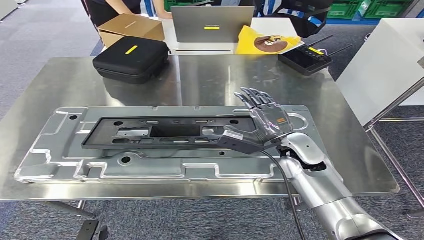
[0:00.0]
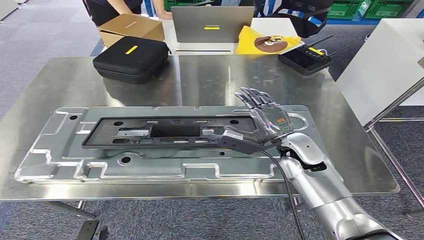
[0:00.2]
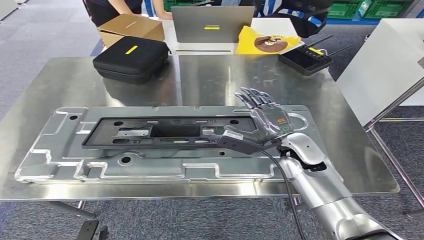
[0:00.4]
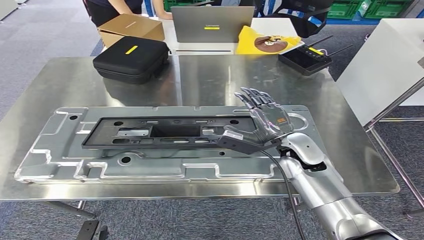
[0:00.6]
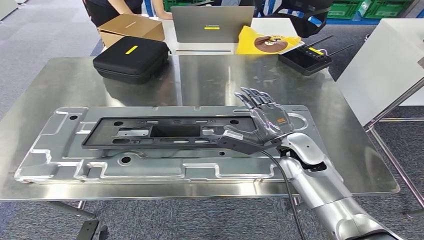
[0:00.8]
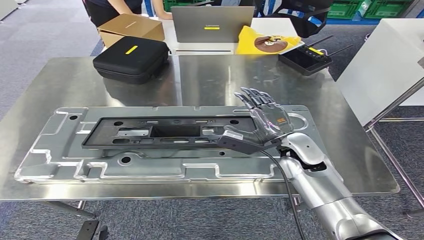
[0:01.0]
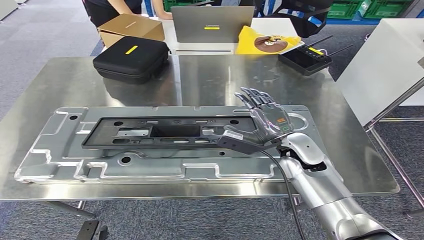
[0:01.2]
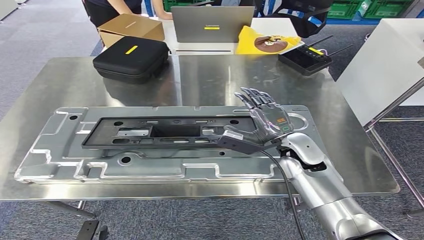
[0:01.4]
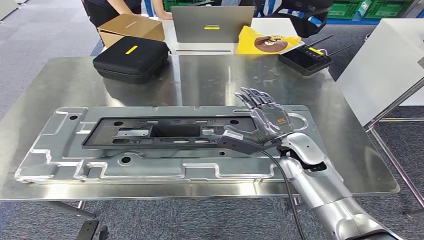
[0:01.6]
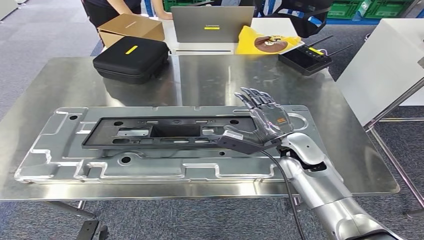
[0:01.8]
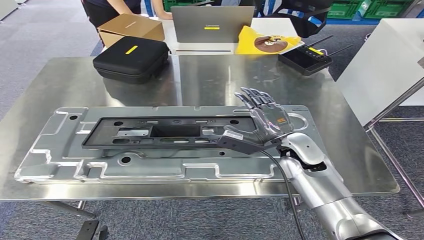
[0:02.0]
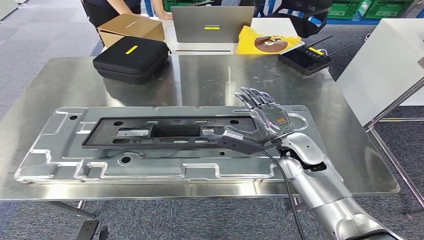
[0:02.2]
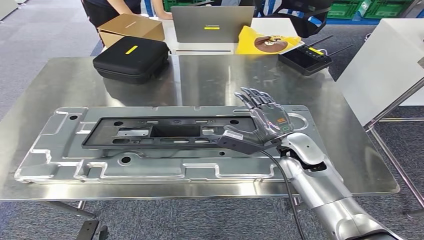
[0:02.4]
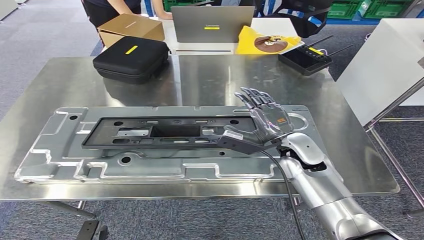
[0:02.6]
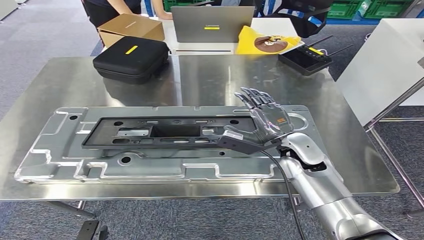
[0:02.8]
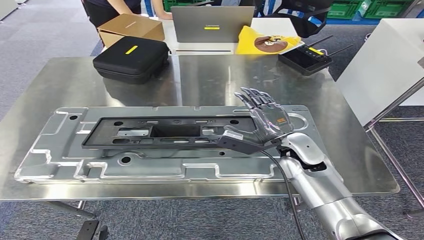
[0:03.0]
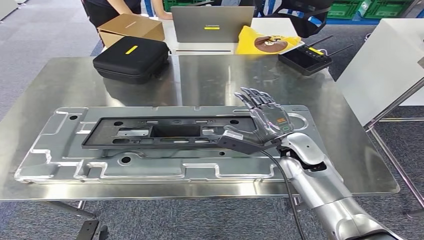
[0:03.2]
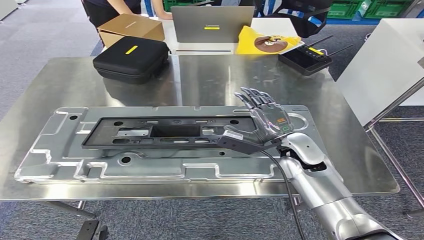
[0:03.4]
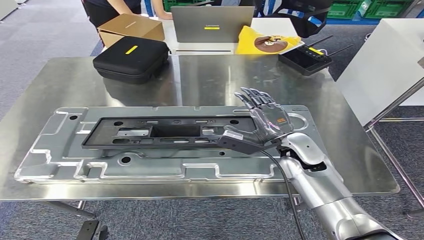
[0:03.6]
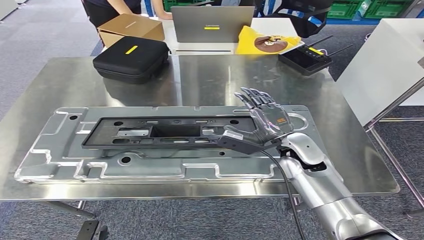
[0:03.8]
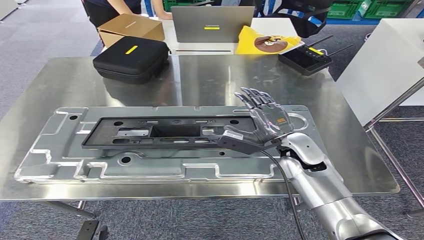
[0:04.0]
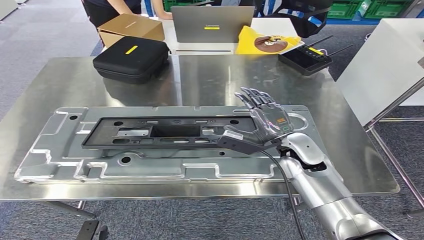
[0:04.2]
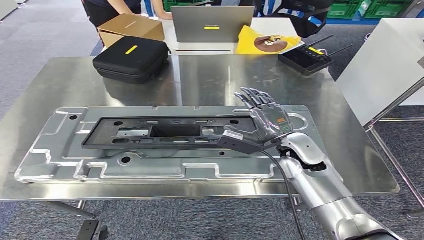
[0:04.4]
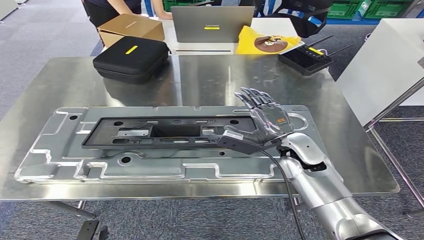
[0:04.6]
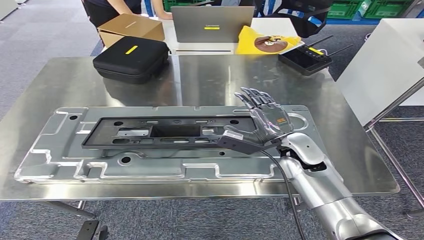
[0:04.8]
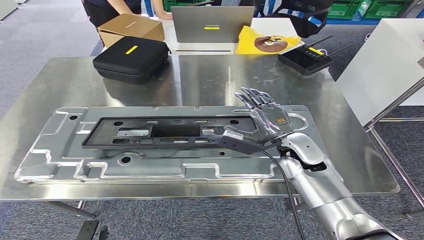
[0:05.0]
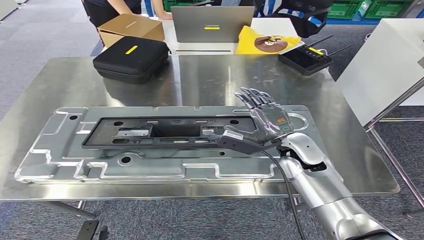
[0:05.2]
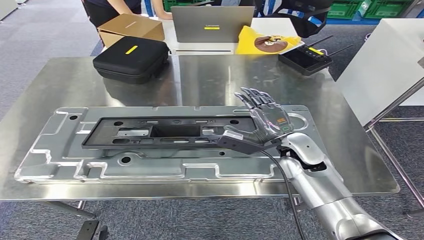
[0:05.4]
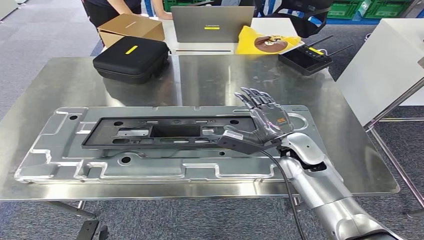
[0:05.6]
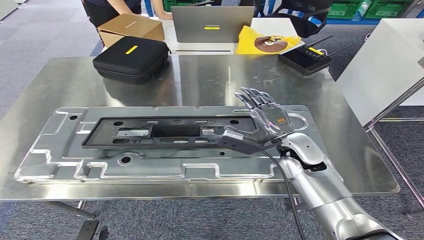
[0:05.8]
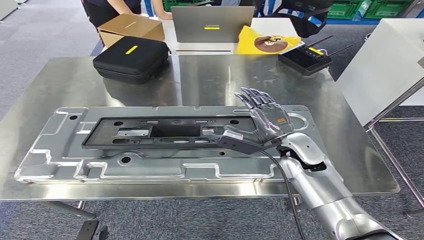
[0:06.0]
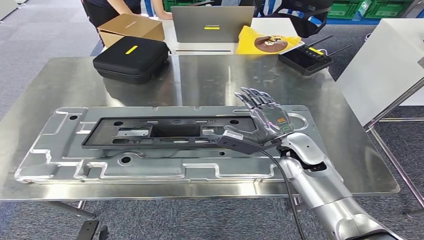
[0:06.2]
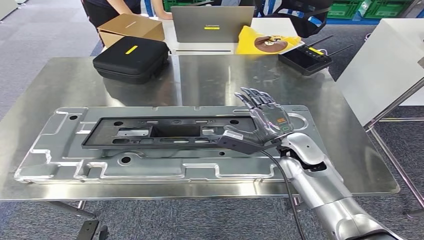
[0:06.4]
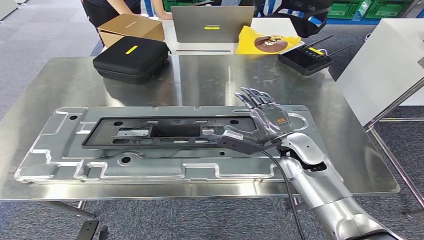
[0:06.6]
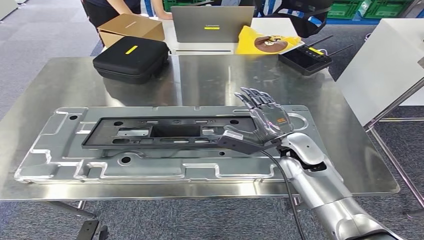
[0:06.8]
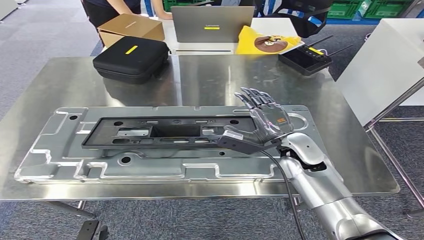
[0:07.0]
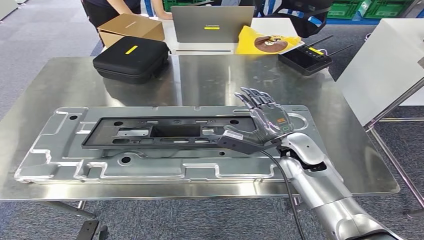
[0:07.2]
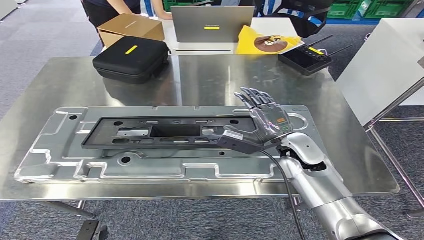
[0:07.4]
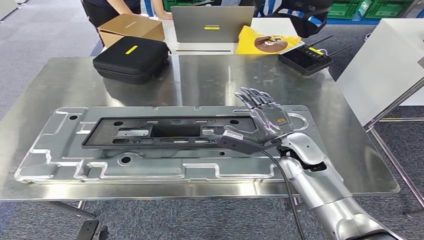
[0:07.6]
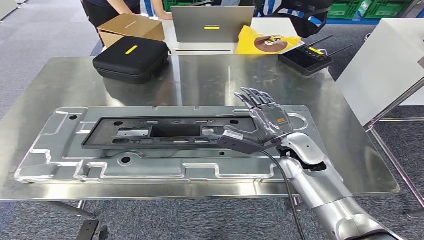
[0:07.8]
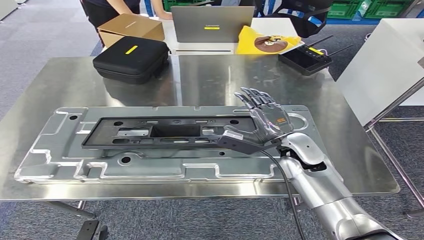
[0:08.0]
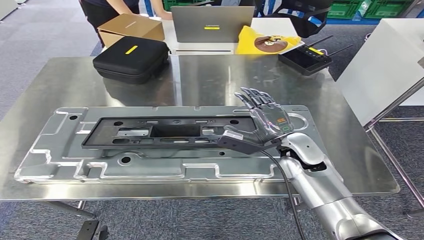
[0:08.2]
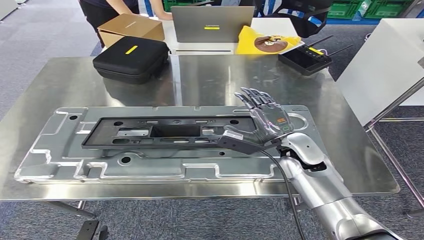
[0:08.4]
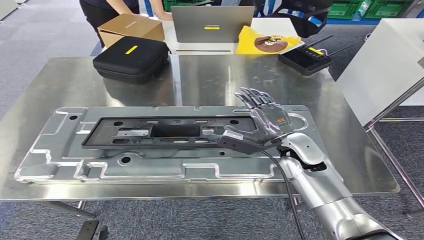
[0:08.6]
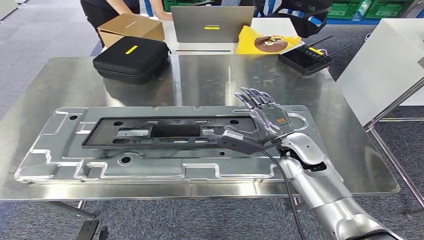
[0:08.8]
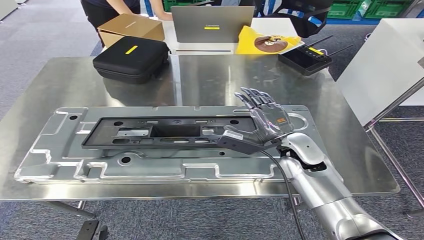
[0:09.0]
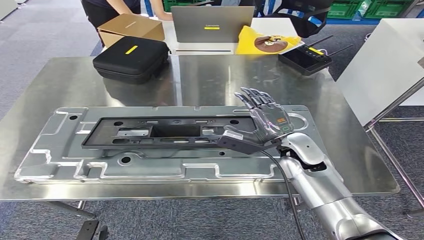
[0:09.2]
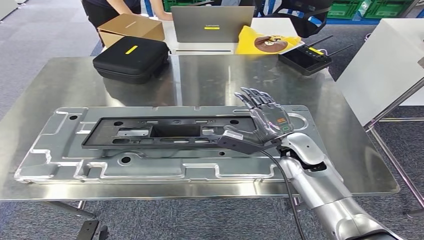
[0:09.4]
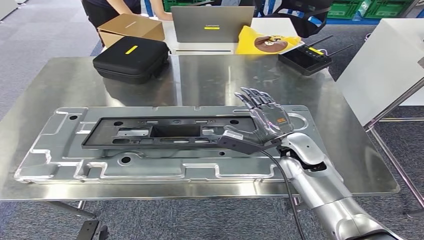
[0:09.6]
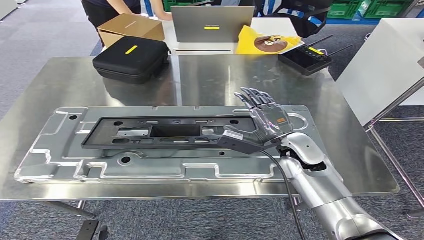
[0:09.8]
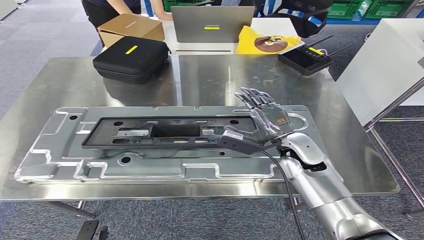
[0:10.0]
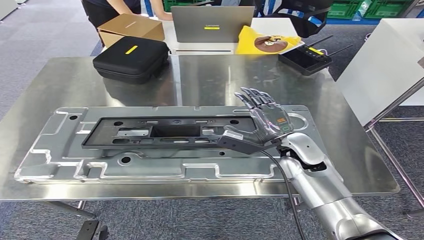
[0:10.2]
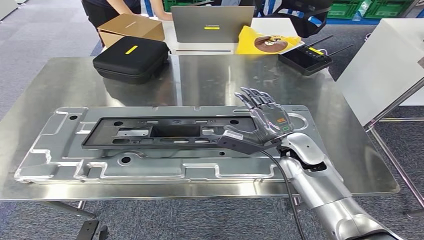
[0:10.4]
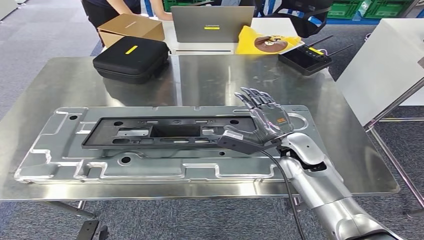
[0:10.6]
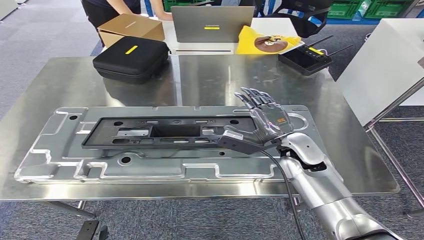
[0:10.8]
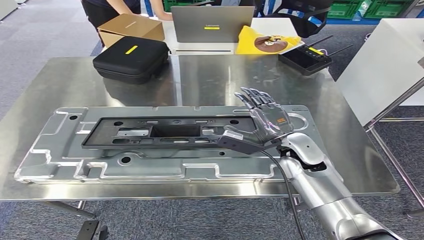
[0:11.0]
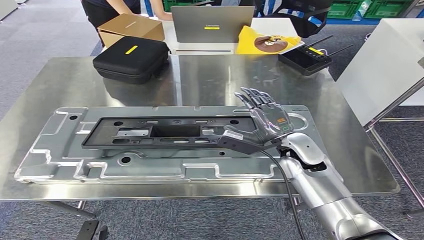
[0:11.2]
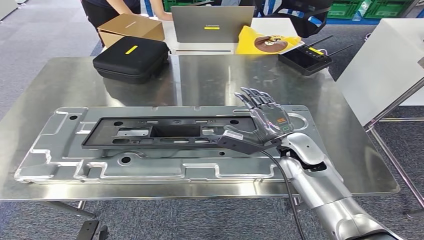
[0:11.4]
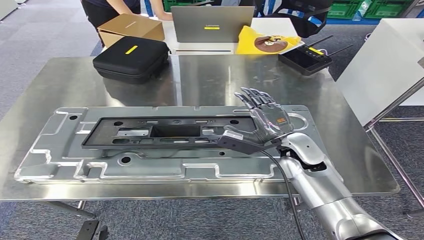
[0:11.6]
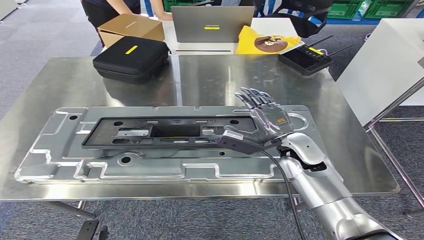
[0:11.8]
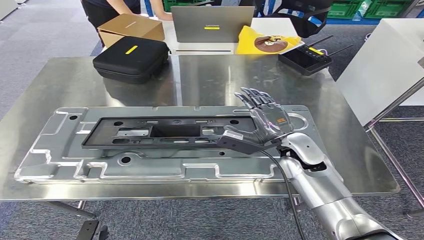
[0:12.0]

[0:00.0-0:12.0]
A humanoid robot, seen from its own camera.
0:00.0 to 0:12.0: Both hands stay about where they are.

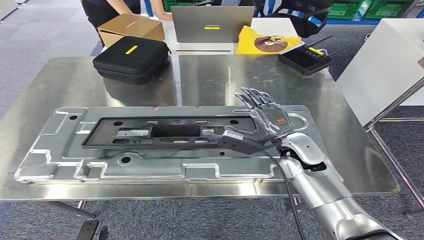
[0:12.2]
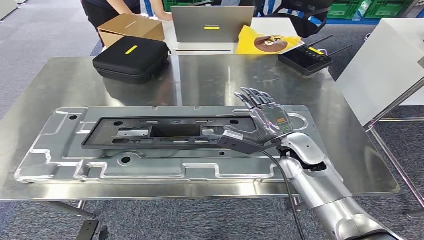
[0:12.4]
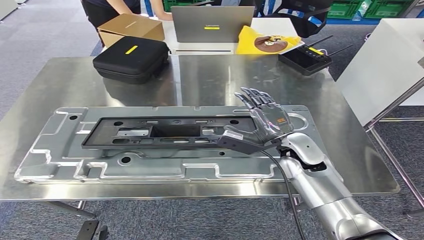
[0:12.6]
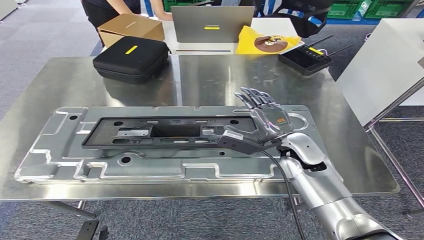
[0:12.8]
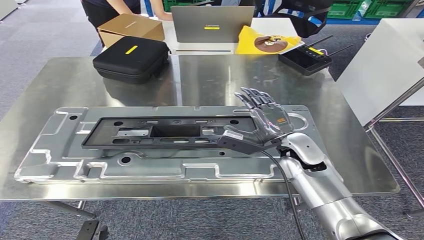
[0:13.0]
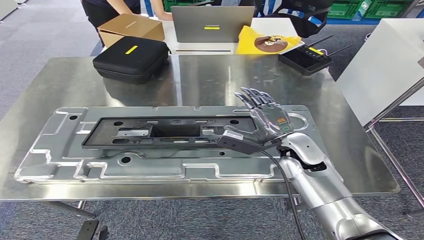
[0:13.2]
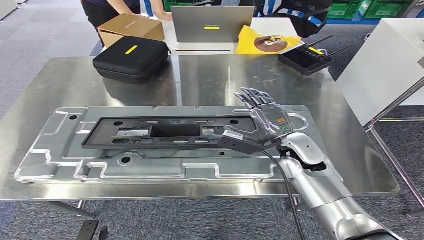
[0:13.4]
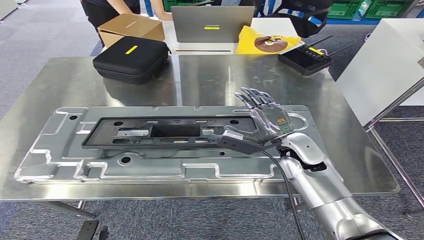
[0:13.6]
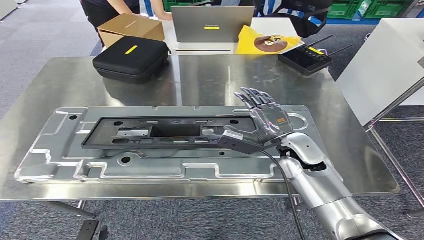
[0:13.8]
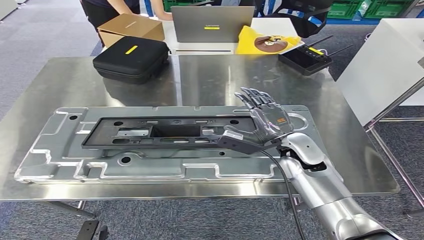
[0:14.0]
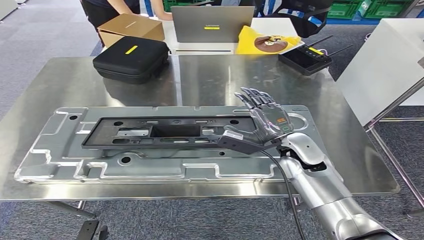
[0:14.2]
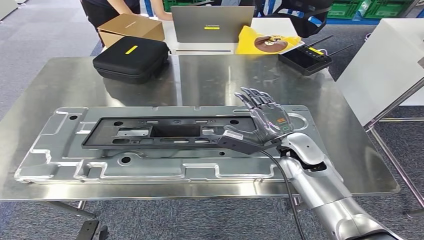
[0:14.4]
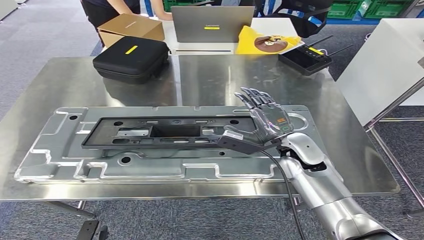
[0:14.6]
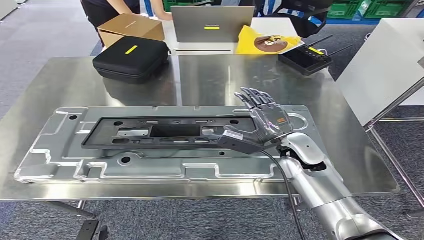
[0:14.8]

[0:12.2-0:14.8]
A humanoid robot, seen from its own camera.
0:12.2 to 0:14.8: Both hands stay about where they are.

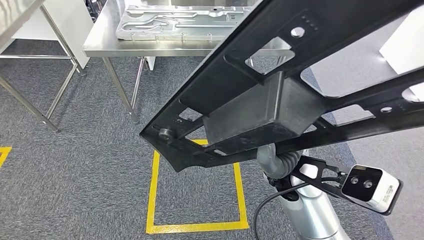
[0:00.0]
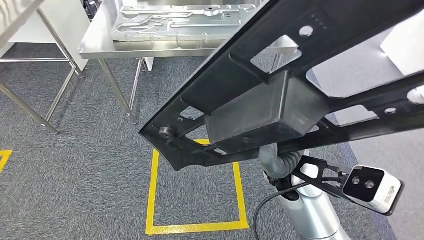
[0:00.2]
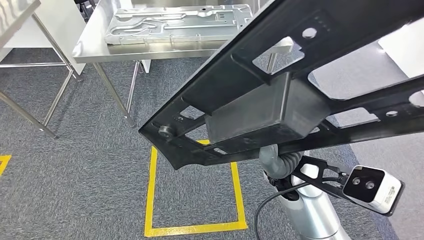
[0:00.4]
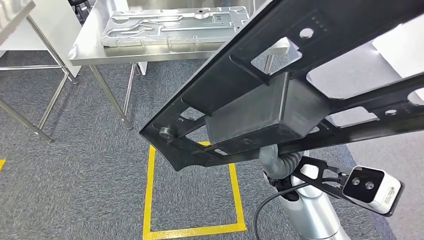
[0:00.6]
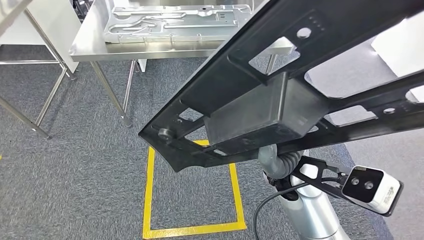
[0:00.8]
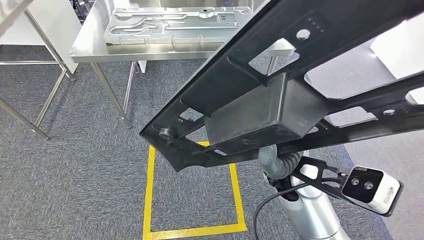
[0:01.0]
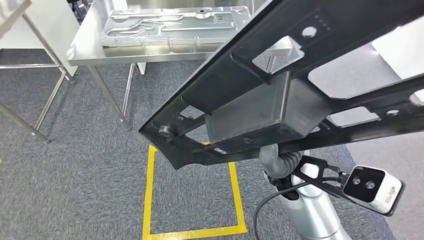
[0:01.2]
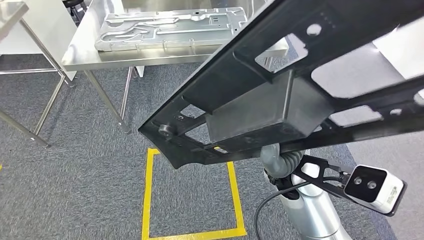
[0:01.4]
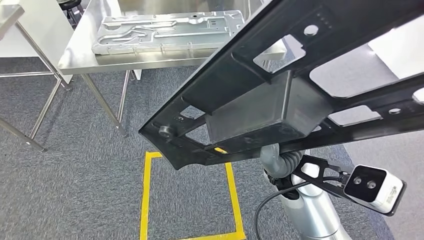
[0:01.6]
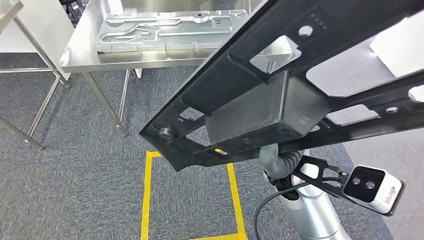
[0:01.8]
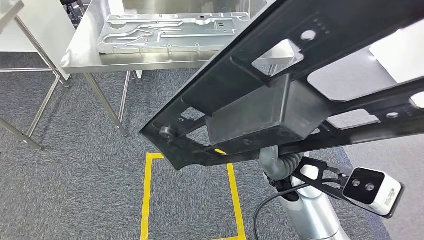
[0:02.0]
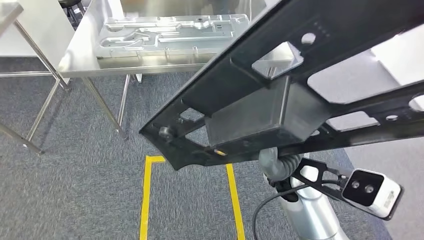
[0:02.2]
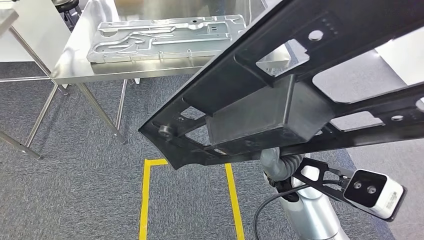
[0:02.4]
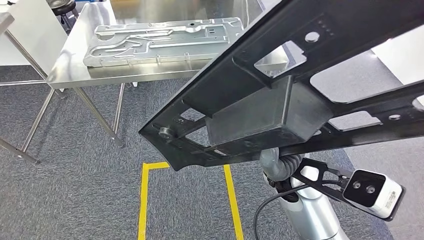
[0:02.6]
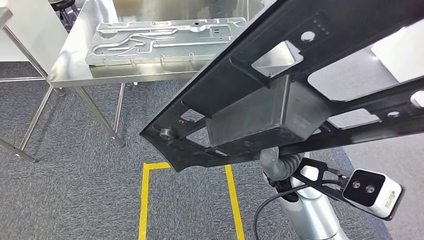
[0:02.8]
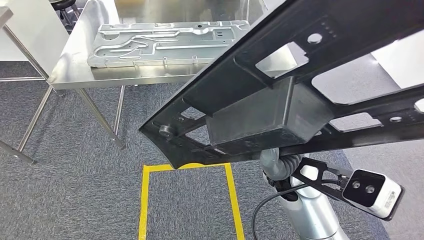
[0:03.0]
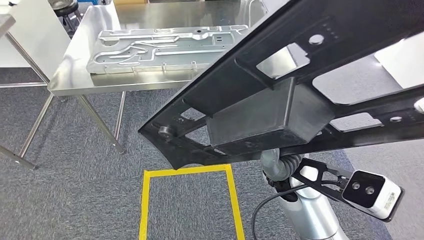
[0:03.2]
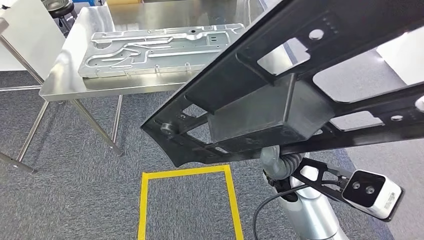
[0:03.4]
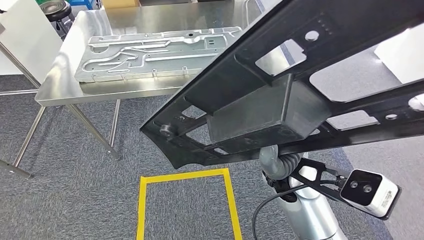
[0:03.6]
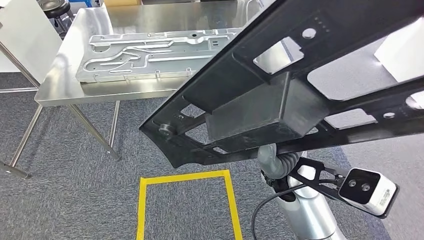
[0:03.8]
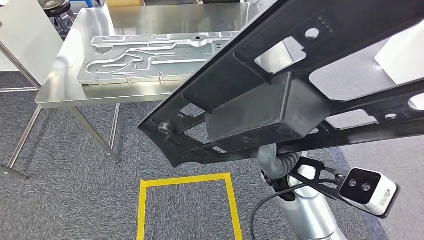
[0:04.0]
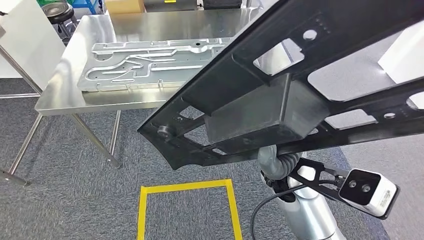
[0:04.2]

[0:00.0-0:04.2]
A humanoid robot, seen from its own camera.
Step, 0:00.0 to 0:03.2: Move the large material to the workbench.
